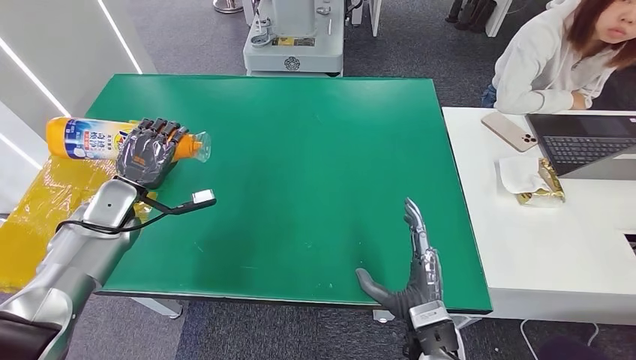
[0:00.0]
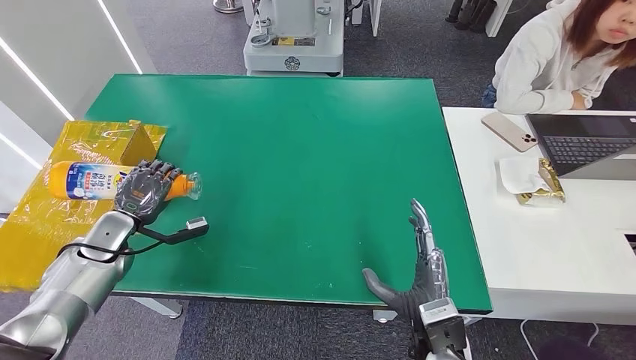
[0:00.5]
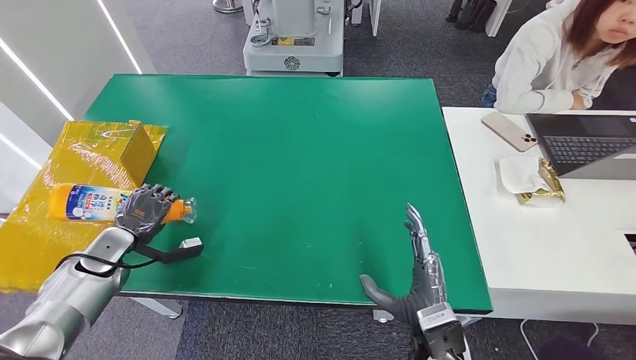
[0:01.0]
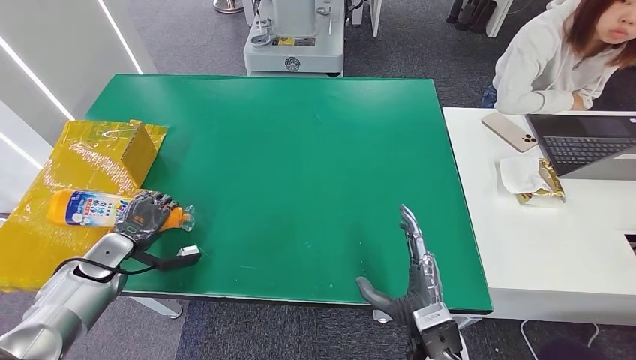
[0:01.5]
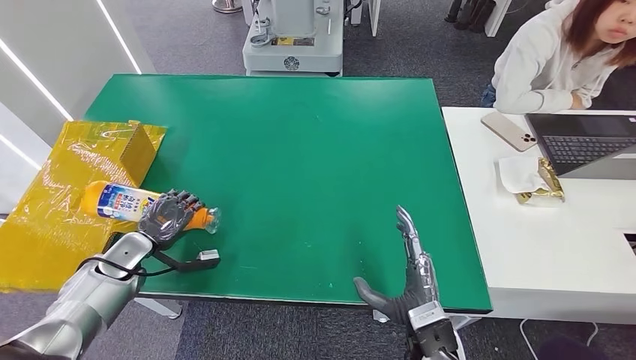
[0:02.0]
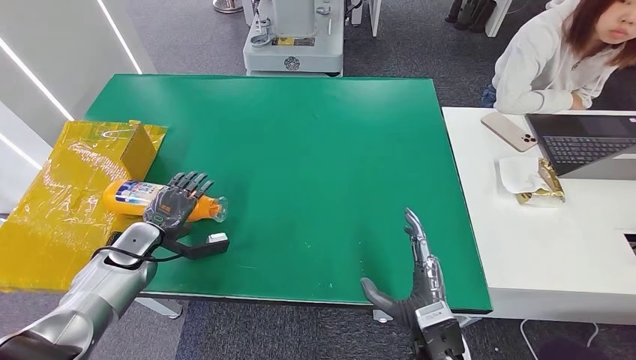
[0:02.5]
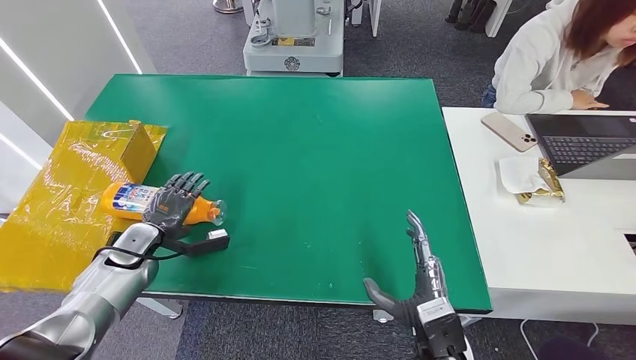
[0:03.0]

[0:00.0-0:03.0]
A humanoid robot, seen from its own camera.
Step, 0:00.0 to 0:03.0: Turn the bottle to the front side.
0:00.0 to 0:01.5: The left hand travels downward, backward and to the left by approximately 15 cm.
0:01.5 to 0:03.0: The left hand shifts roughly 5 cm to the right.
